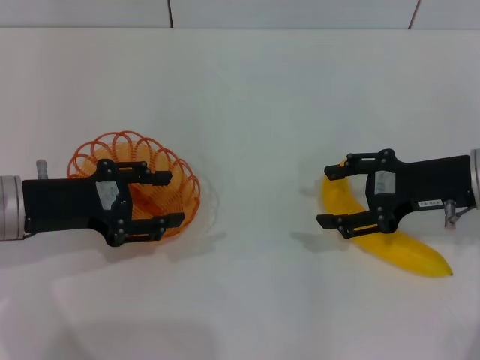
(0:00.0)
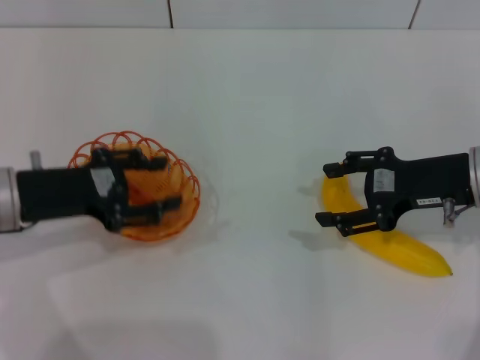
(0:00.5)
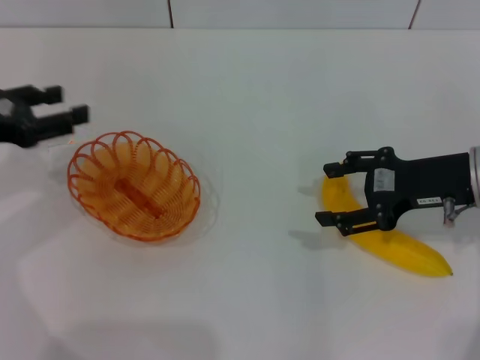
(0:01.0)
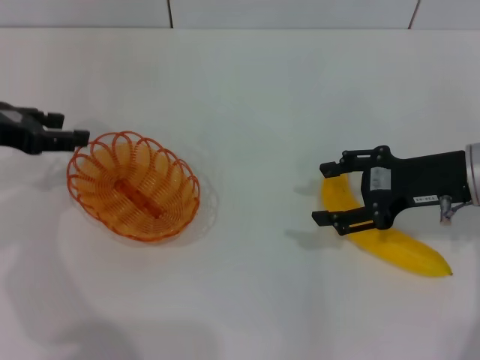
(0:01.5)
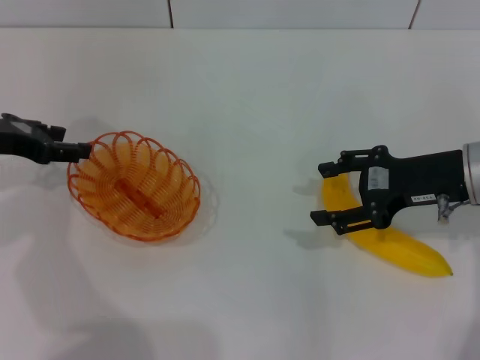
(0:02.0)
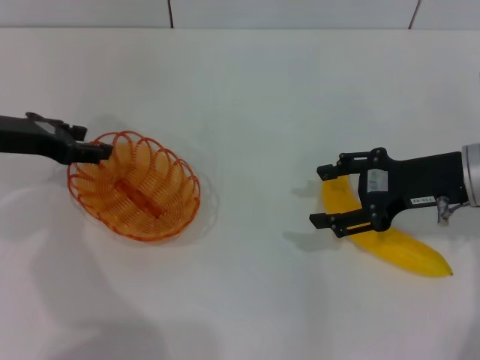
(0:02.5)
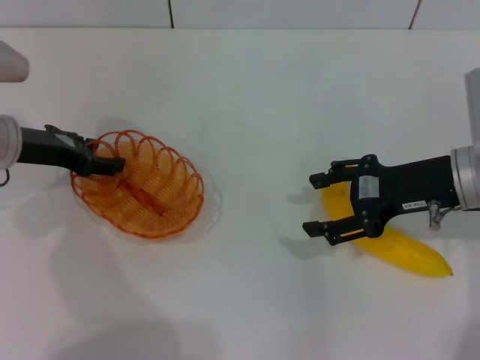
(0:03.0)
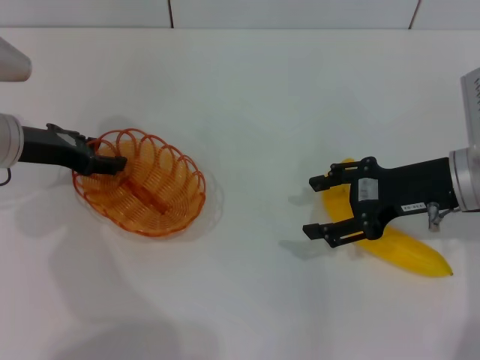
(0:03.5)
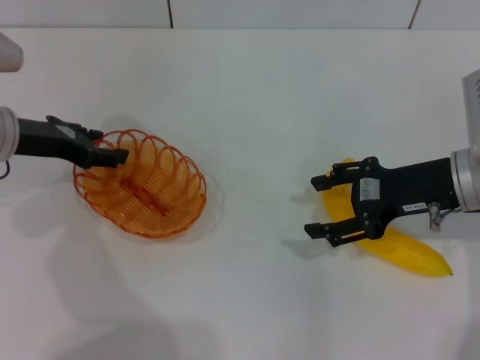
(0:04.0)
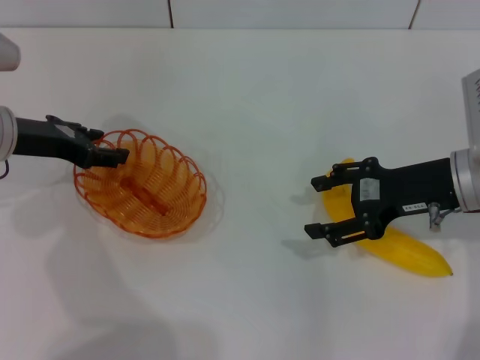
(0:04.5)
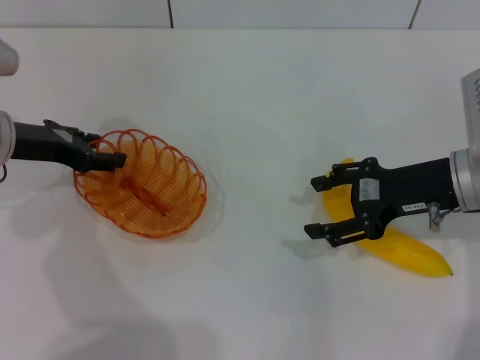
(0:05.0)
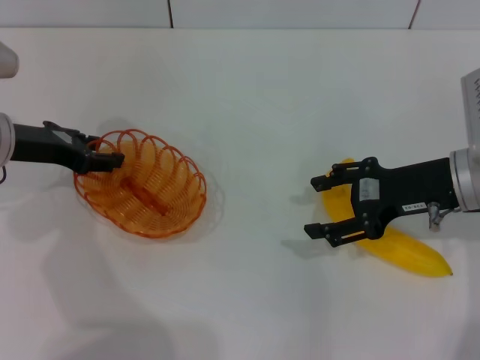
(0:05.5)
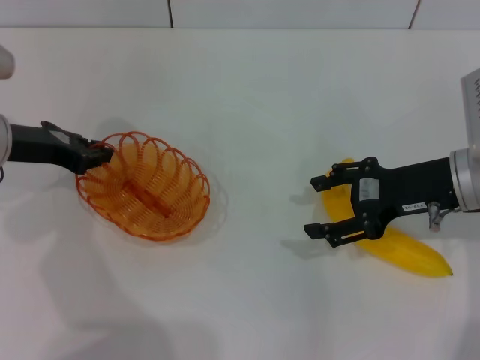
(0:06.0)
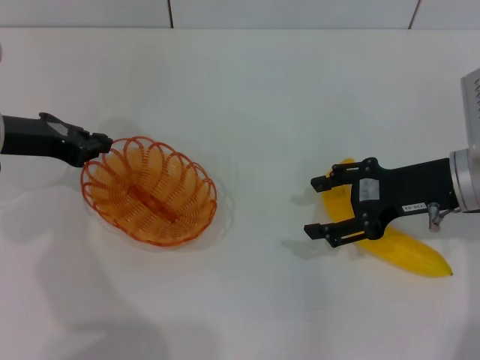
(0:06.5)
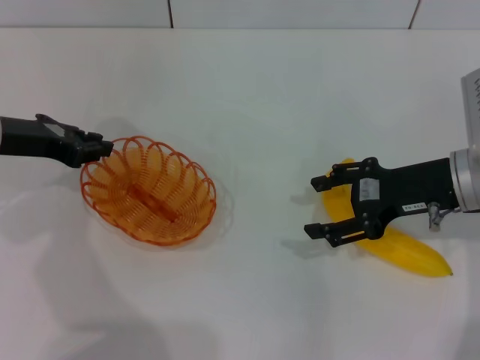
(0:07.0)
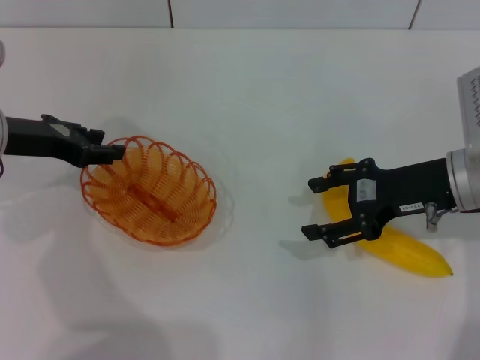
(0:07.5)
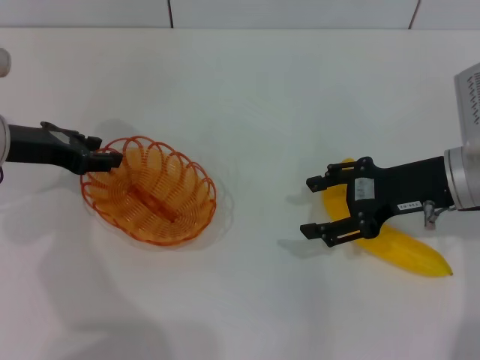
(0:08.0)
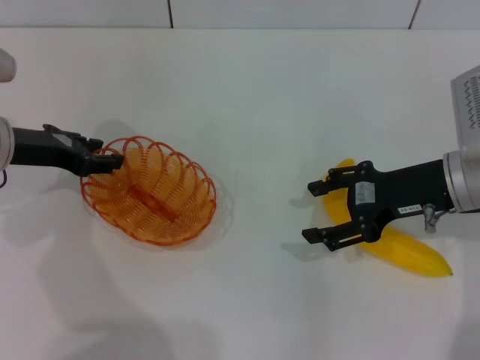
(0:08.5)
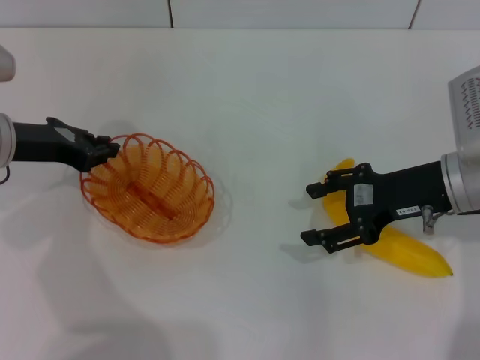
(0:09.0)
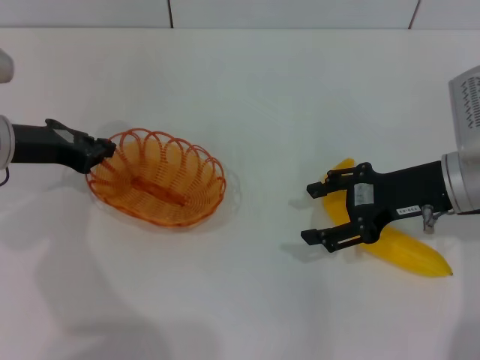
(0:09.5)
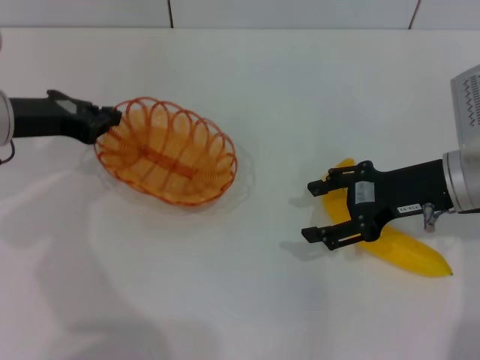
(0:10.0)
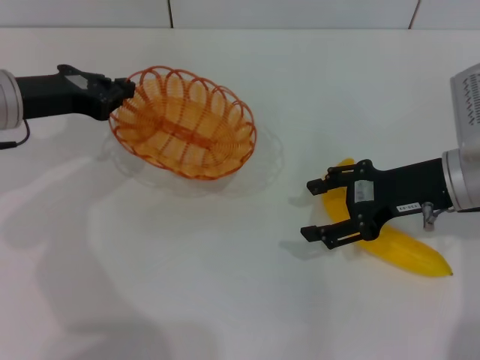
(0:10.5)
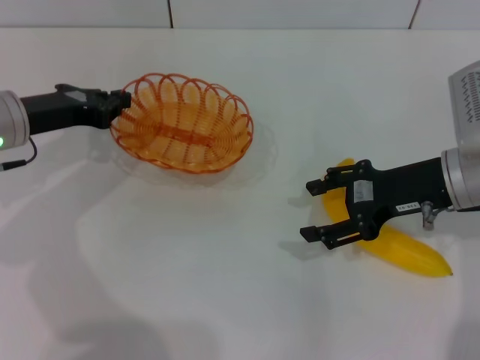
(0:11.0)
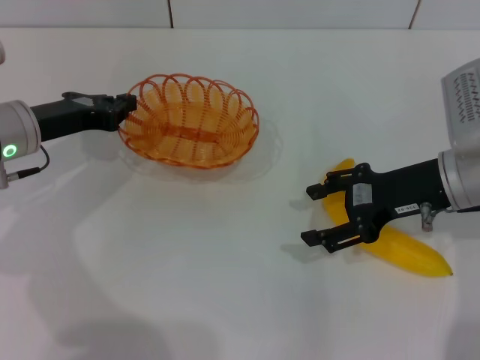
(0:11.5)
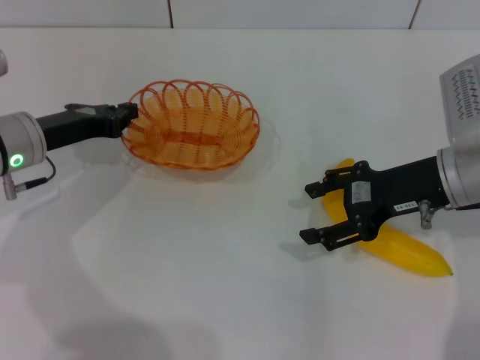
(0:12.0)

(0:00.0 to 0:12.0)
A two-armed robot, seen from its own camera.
Step, 0:00.0 - 0:10.0: Pick up the basket with the left gripper.
0:00.0 - 0:02.0: The left gripper goes approximately 10 cm forward and to the left.
0:02.0 - 0:04.0: The grippers move only a little.
0:04.0 - 0:06.0: The left gripper closes its fingers.
0:06.0 - 0:08.0: The left gripper opens up.
0:08.0 - 0:10.0: The left gripper closes its fingers.
0:10.0 - 0:12.0: The left gripper changes place by approximately 5 cm.

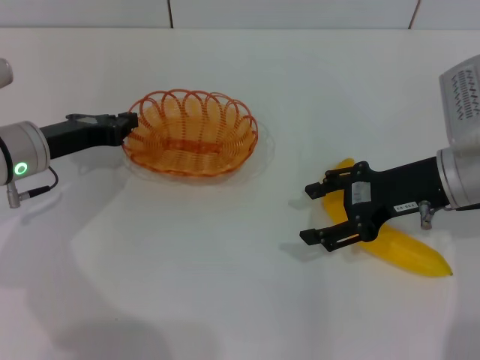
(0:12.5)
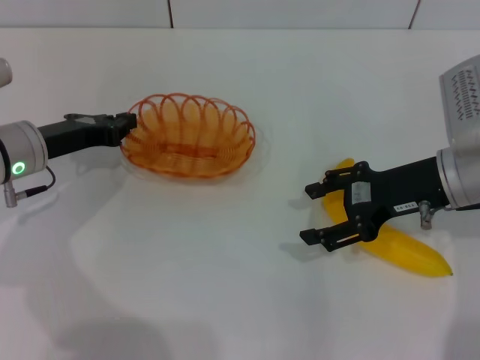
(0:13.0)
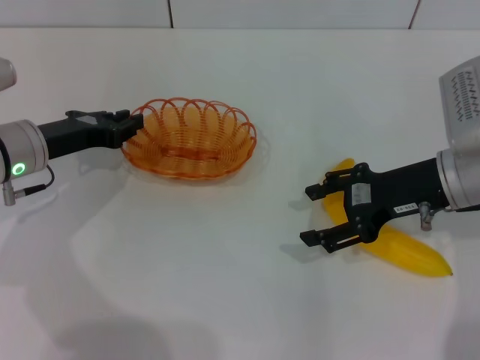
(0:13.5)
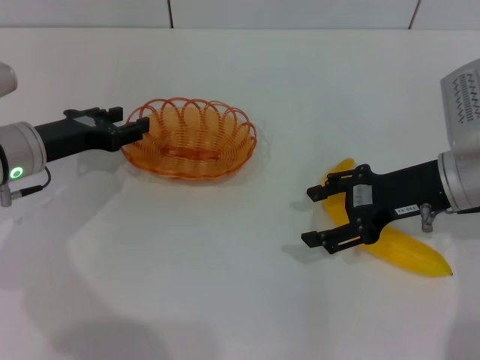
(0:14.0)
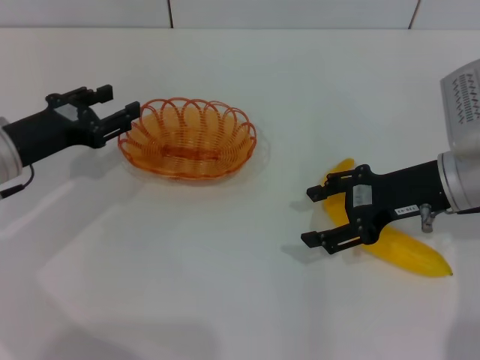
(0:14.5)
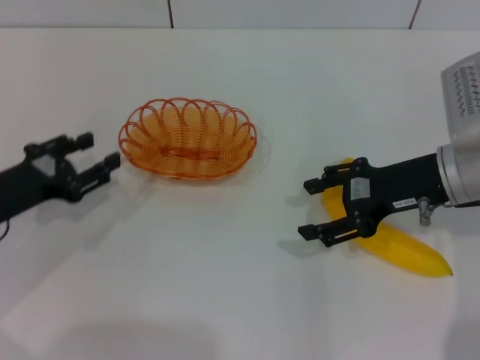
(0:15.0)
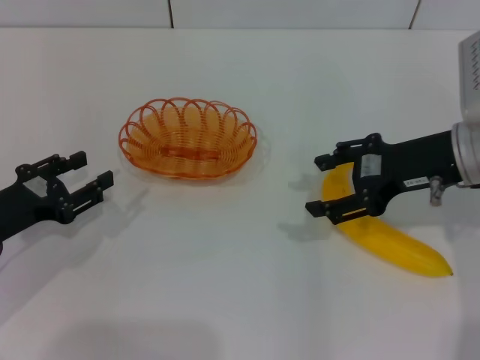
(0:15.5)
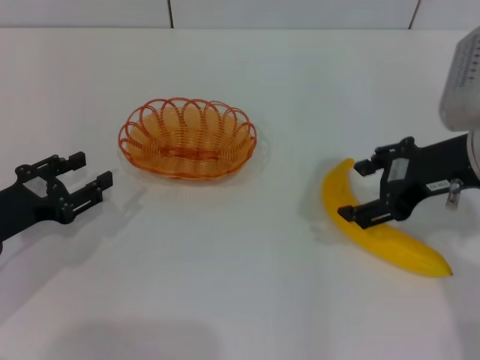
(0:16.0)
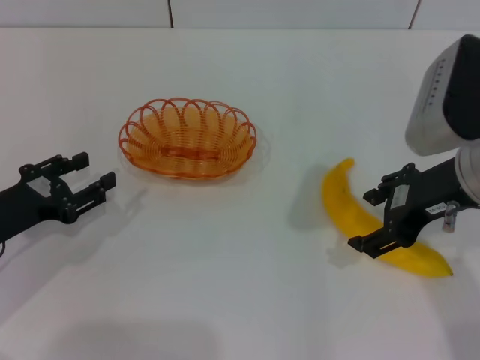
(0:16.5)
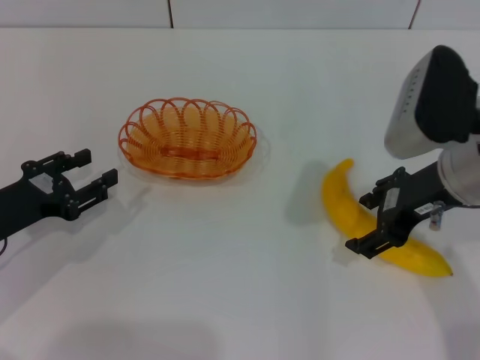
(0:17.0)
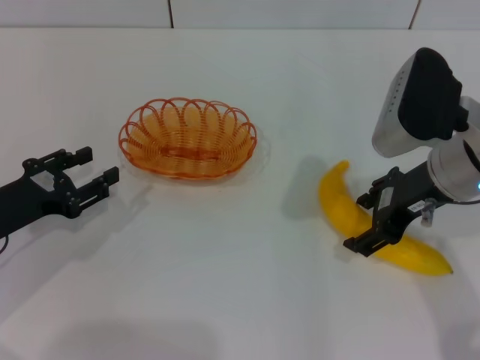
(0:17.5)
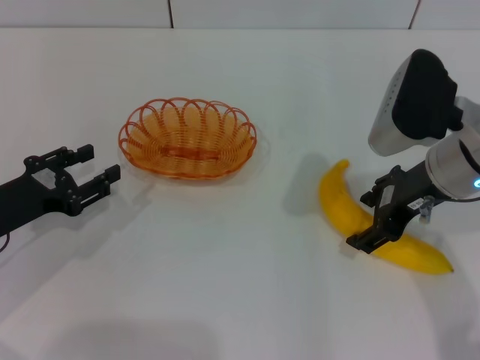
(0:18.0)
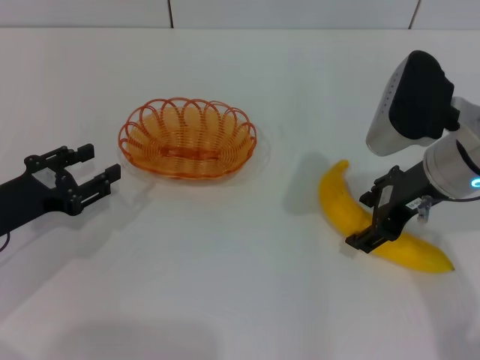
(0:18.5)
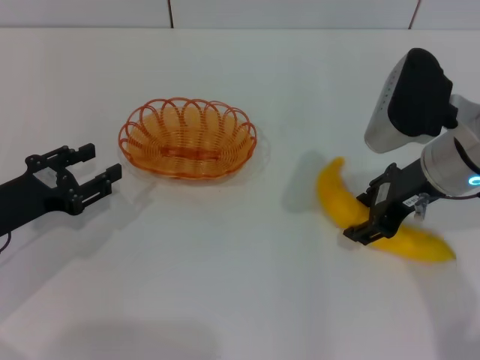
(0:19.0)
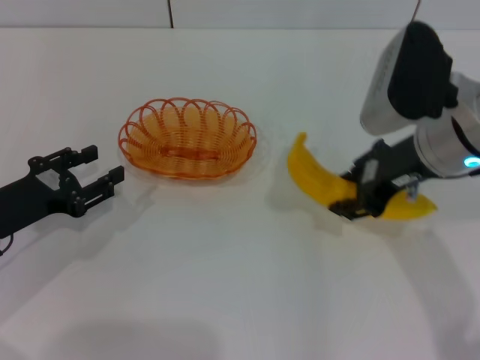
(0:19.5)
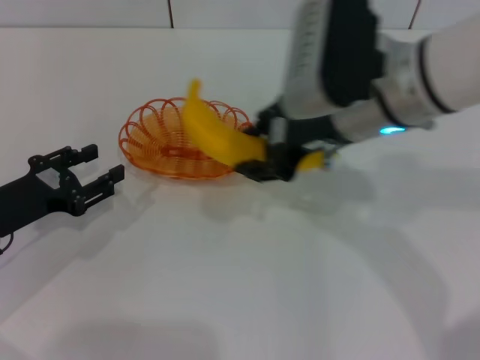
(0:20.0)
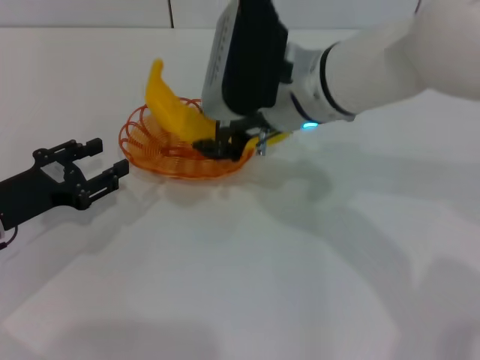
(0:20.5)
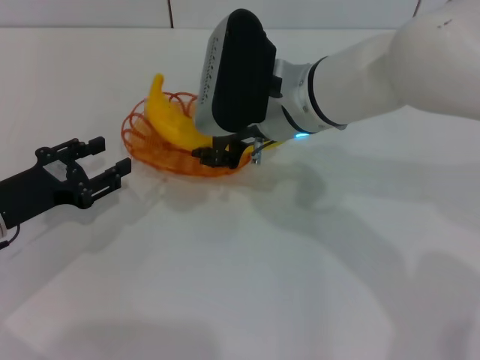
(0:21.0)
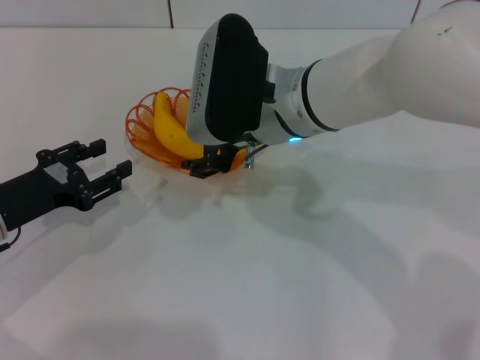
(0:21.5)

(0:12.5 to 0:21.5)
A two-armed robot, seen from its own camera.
Step, 0:12.5 - 0:15.0: Place the basket in the center of view with the left gripper.
Step, 0:15.5 - 0:19.0: Pick up the banana with the right gripper.
0:12.5 - 0:14.5: The left gripper opens.
0:14.5 - 0:17.0: The left gripper goes roughly 5 cm backward, while the right gripper changes place by about 5 cm.
0:17.0 - 0:19.5: The right gripper closes its fingers.
0:19.5 - 0:21.5: The right gripper heads to the left, covering some 15 cm, and opens up.

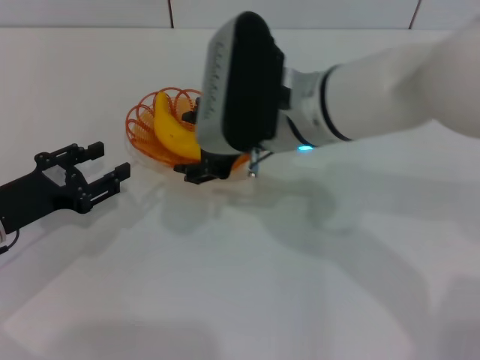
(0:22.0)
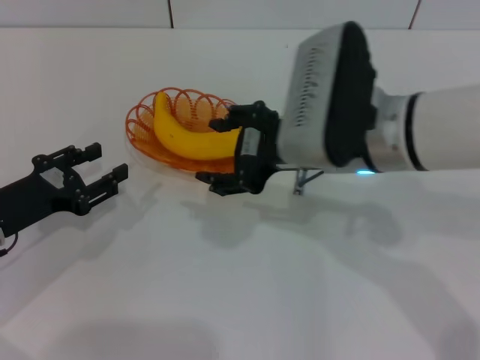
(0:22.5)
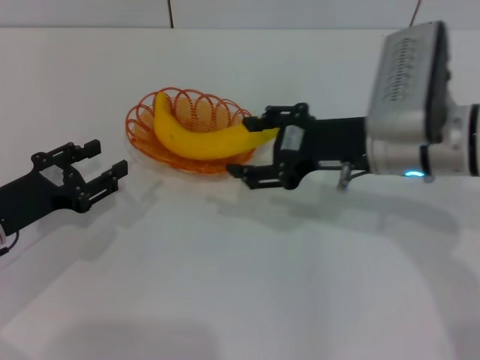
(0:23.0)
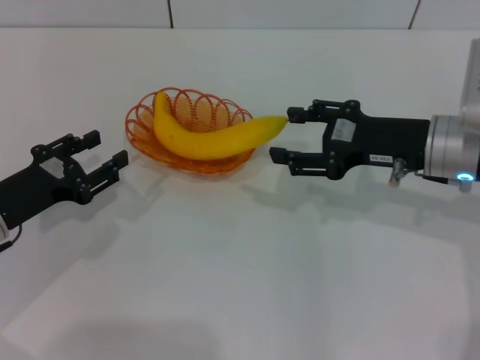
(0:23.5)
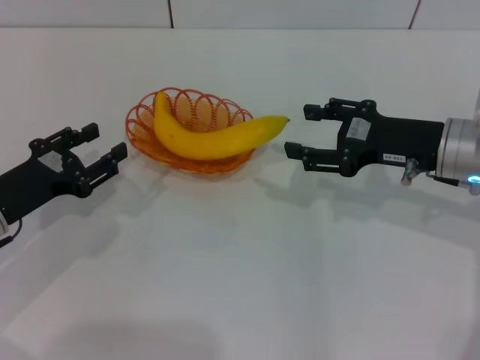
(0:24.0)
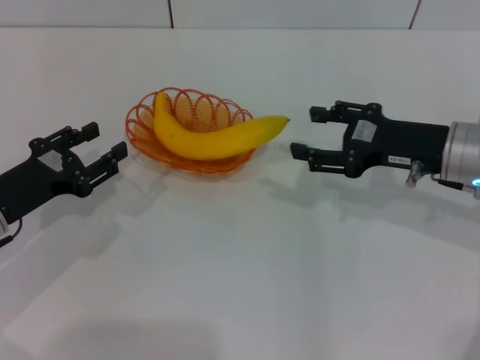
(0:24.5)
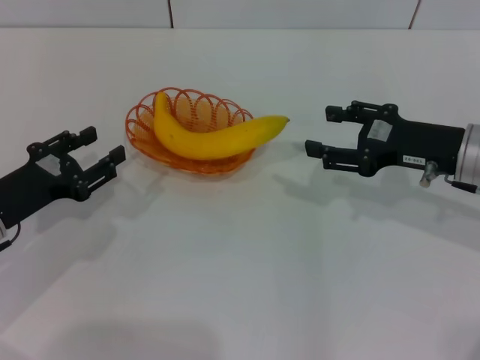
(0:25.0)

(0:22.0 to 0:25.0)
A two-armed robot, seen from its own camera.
0:22.0 - 0:23.5: The right gripper goes some 15 cm to the right.
0:23.5 - 0:25.0: The grippers move only a little.
